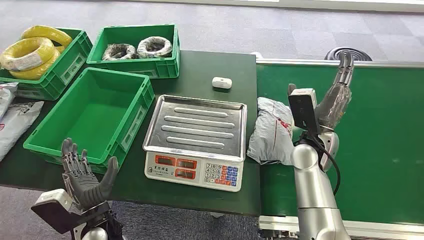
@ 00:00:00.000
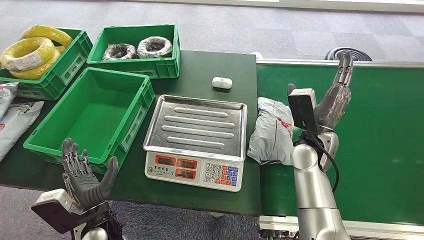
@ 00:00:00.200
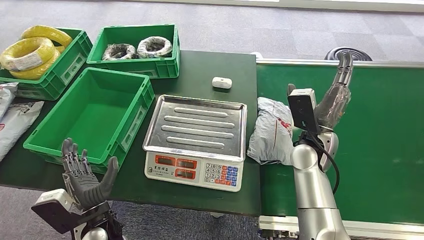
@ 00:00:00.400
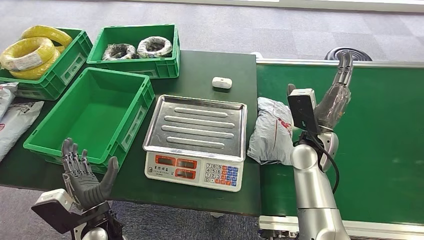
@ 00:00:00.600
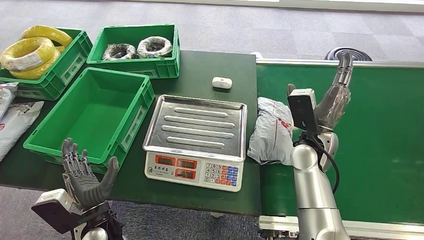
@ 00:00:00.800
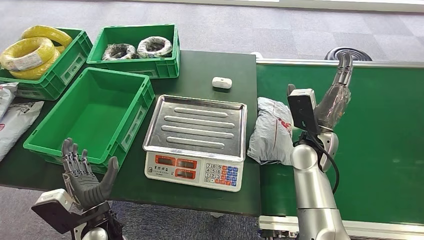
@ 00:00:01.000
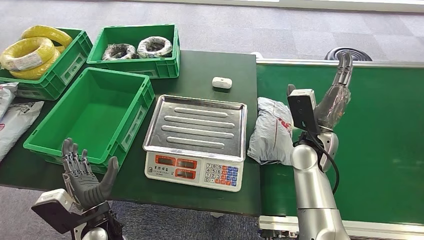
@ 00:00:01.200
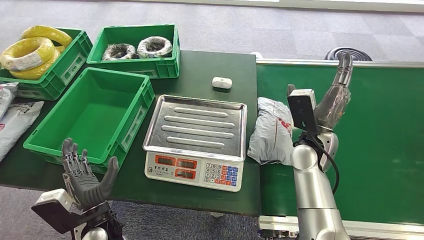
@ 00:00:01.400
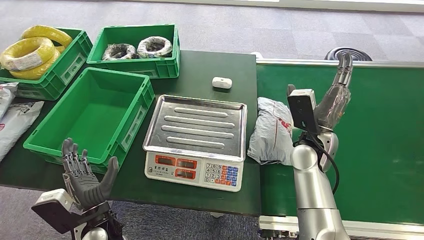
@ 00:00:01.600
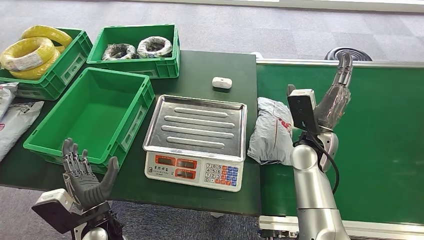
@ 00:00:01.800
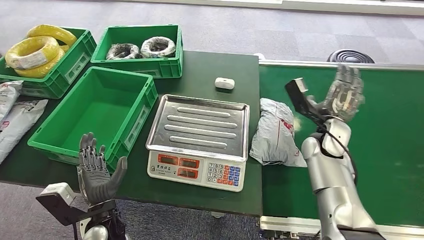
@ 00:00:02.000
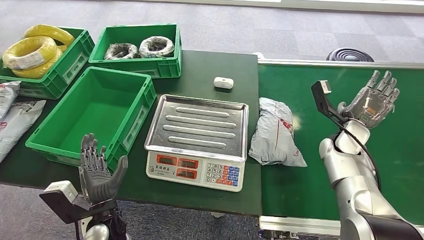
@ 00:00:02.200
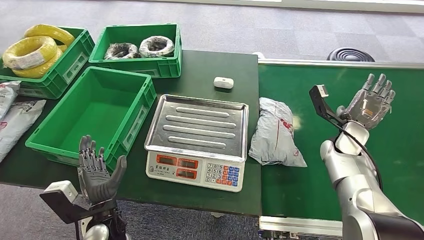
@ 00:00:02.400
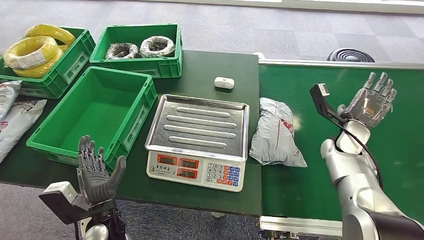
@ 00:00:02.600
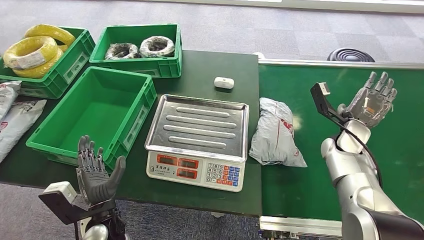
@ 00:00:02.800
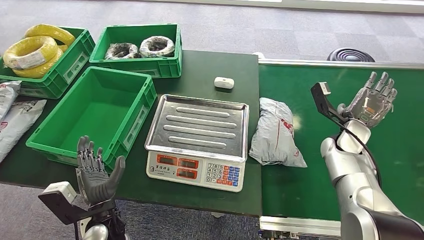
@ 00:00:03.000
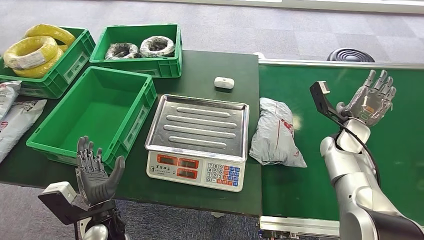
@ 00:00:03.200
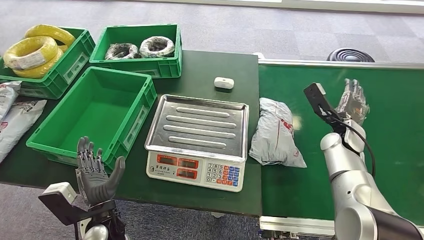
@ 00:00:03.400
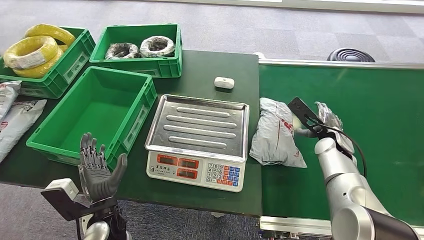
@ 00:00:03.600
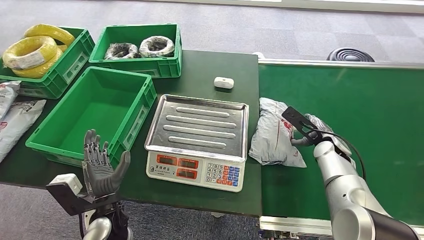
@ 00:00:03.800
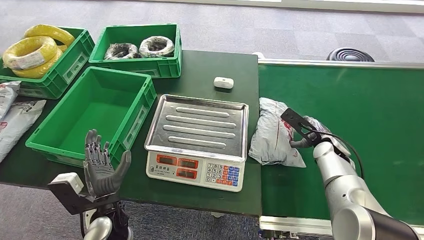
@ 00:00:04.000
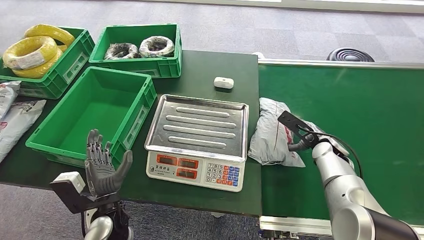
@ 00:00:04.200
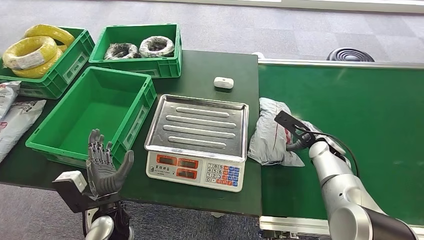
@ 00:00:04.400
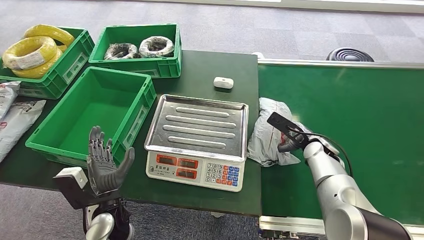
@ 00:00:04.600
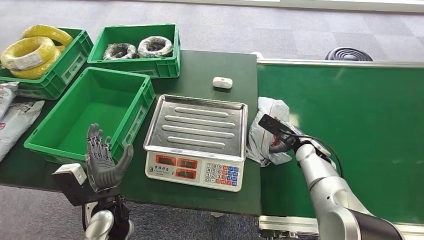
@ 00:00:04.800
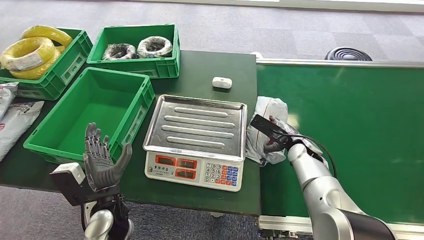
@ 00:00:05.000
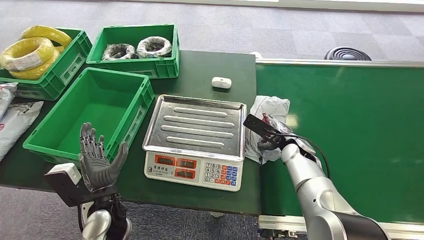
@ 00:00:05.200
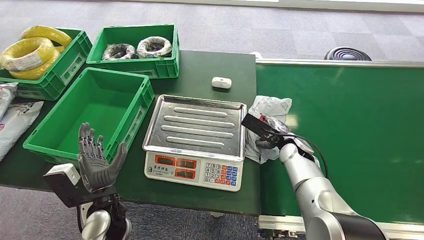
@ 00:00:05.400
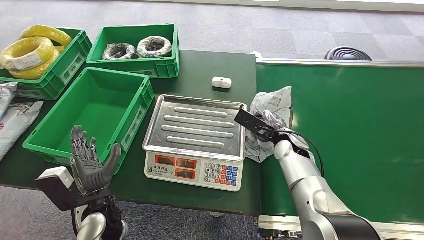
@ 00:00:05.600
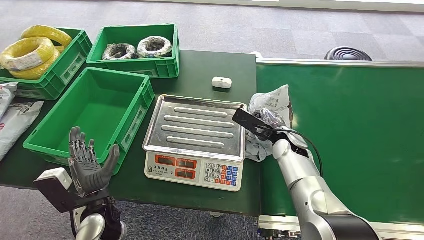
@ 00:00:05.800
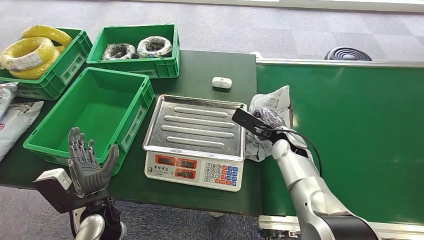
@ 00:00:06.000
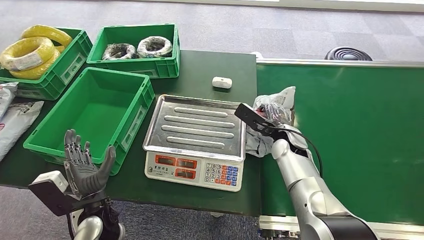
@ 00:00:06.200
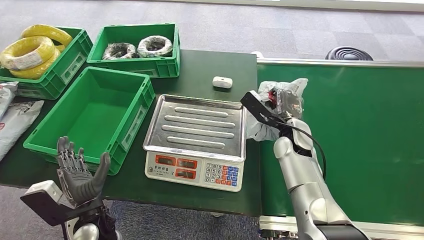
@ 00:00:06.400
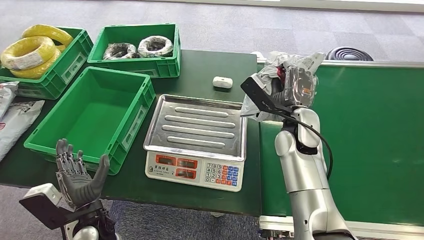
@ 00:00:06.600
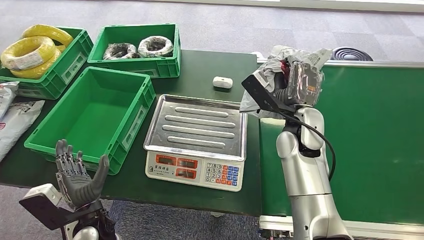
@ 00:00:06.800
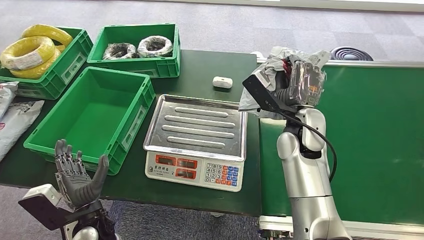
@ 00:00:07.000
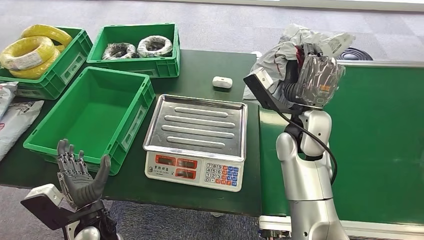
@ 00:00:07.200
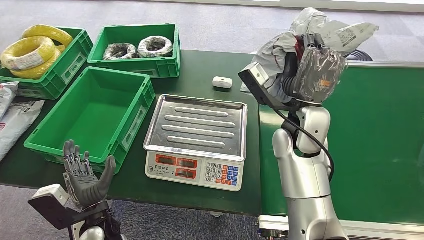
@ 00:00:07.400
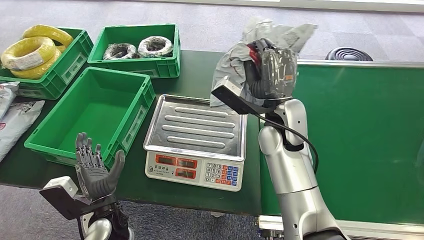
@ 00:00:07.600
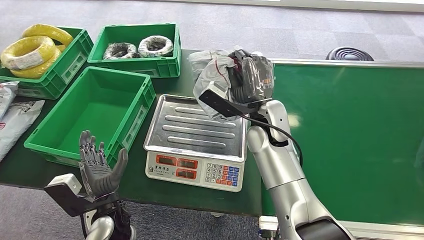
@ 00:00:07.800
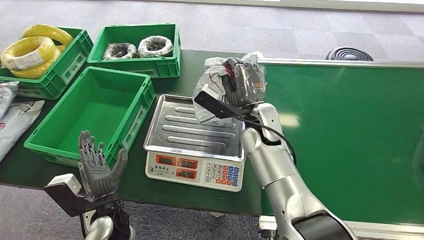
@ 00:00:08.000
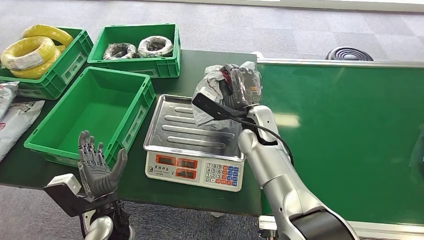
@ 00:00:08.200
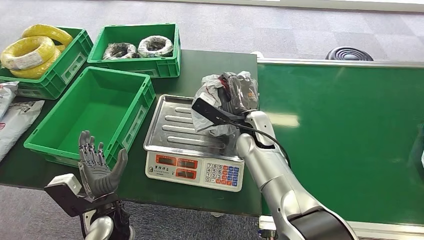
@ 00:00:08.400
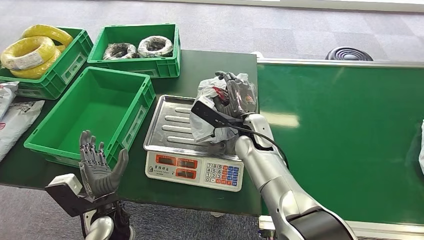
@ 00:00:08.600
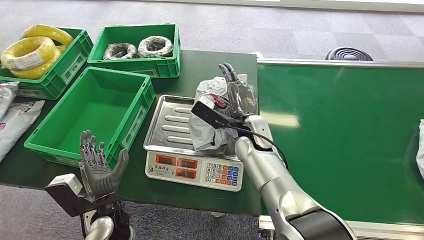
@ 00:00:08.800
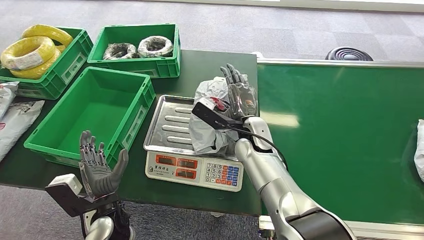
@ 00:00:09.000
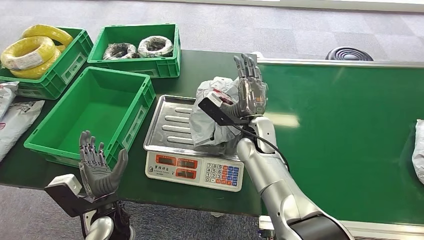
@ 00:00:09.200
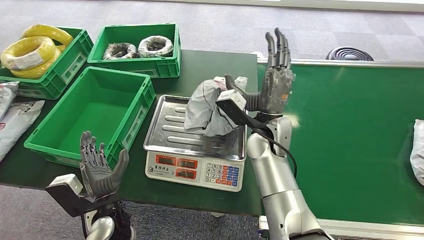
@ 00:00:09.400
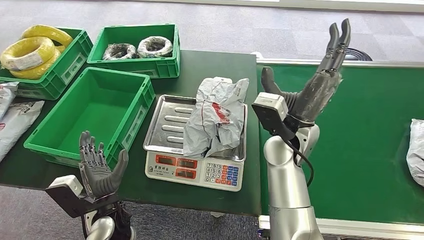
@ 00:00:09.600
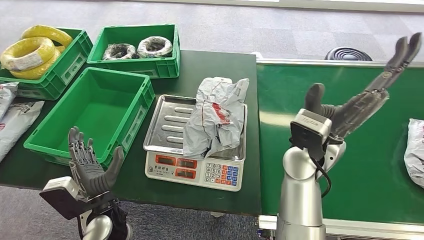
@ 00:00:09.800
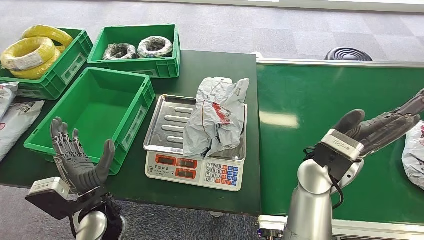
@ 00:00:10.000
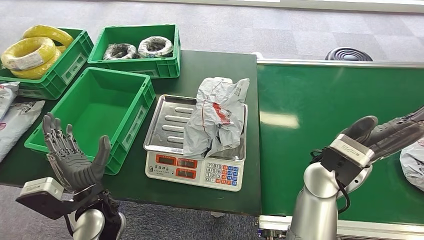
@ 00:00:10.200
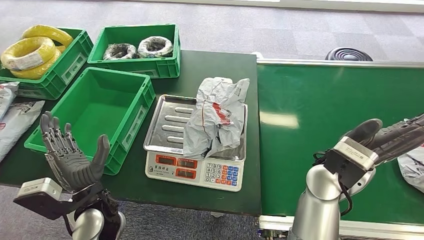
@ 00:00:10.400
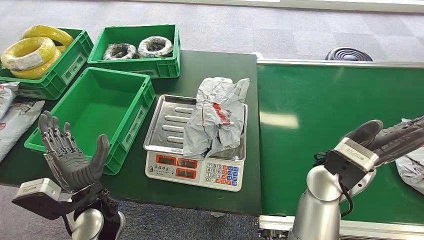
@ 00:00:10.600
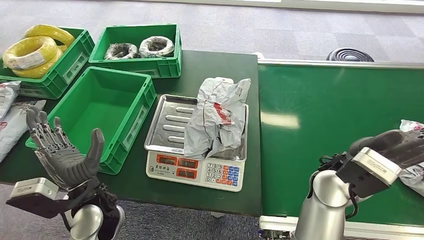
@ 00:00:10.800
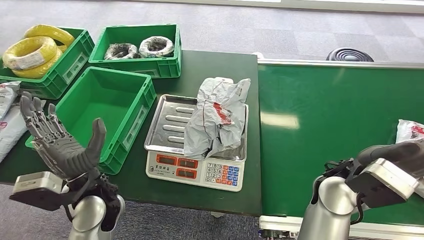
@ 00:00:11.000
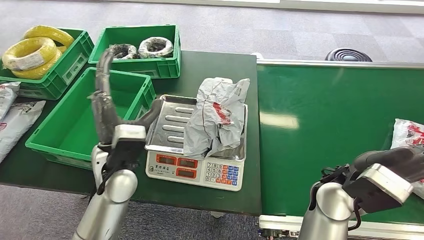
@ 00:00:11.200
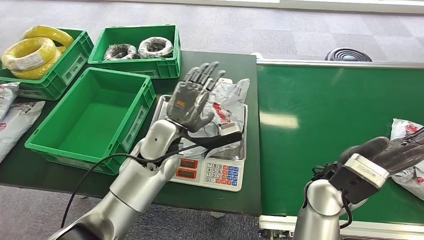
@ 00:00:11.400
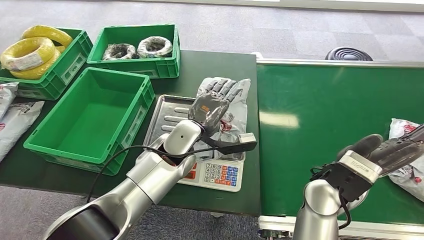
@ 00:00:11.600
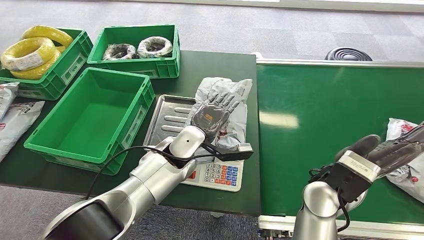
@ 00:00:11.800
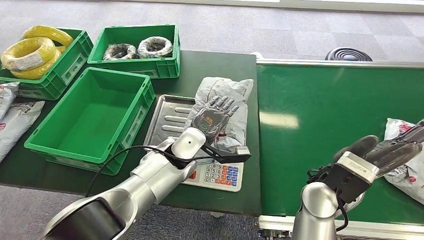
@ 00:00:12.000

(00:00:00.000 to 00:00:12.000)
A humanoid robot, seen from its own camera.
Step, 00:00:00.000 - 00:00:07.200: Pick up the package from the conveyor belt.
Step, 00:00:07.600 - 00:00:10.200: Place the package onto the inbound machine.
00:00:03.000 - 00:00:04.400: The right hand changes place by approximately 5 cm.
00:00:06.000 - 00:00:07.600: The right hand moves upward and to the left, about 15 cm.
00:00:07.600 - 00:00:09.000: The right hand travels downward by roughly 10 cm.
00:00:10.400 - 00:00:12.000: The left hand heads to the right and forward, covering about 20 cm.

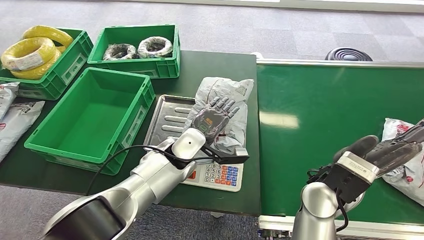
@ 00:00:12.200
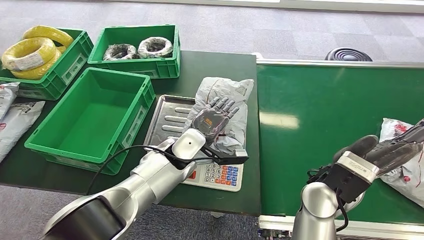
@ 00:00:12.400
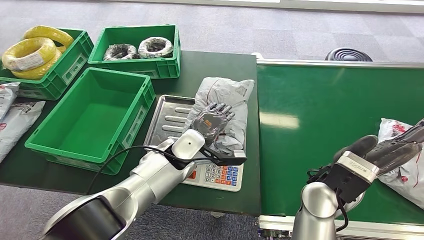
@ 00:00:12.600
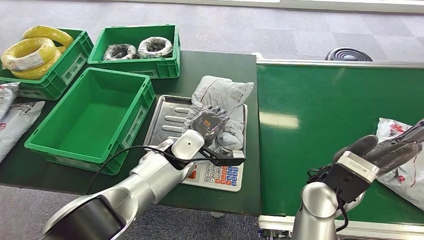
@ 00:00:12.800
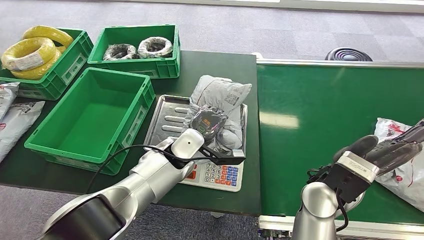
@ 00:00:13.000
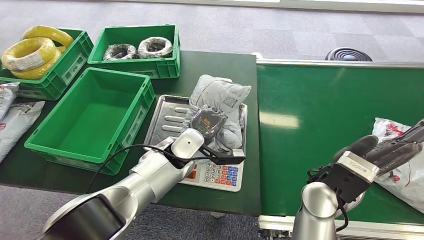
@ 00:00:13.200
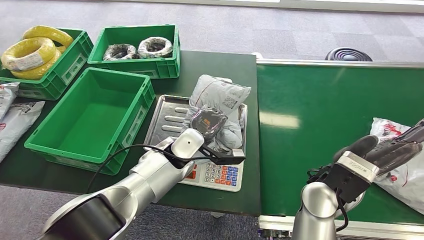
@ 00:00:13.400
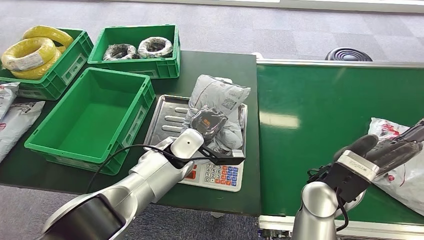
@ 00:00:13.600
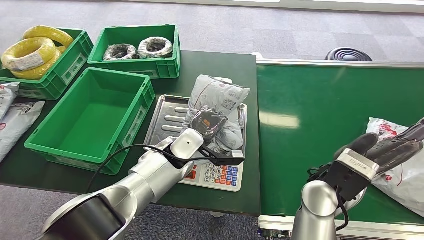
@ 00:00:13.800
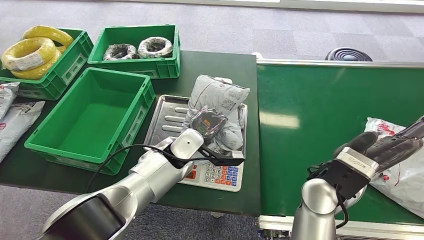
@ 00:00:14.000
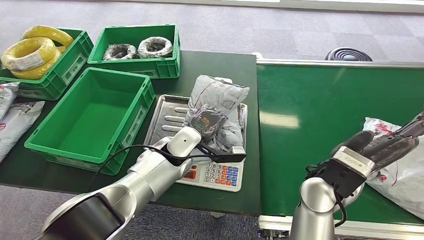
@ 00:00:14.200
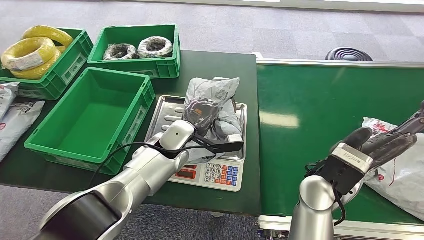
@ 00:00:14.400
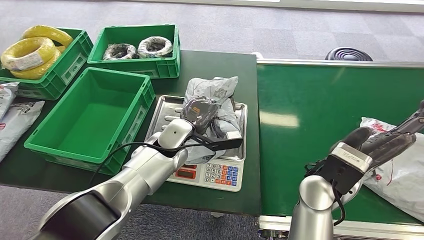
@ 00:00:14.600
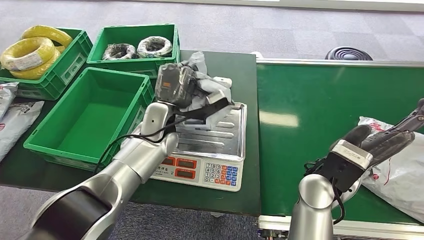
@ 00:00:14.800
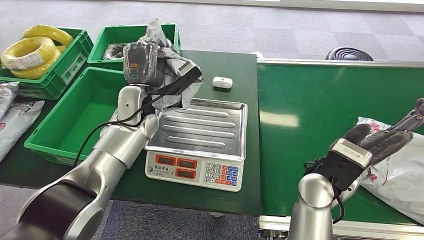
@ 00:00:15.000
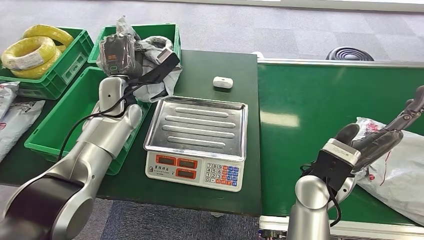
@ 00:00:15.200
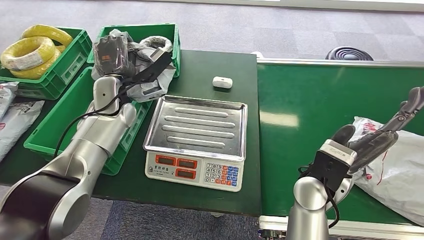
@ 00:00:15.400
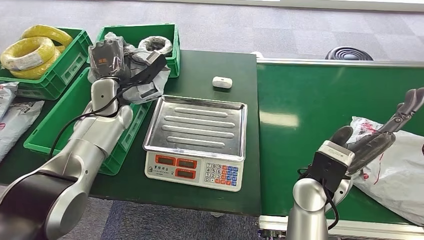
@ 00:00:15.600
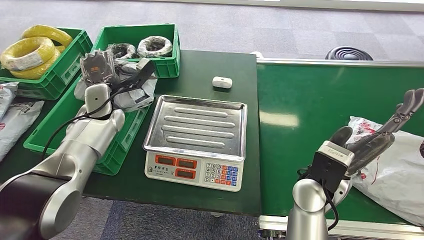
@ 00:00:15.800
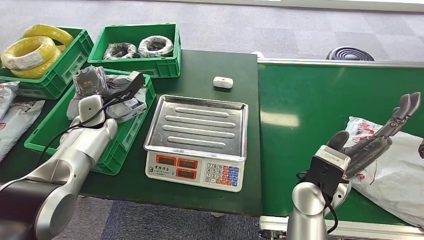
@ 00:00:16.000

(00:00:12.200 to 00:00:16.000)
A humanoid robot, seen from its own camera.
Step, 00:00:12.200 - 00:00:15.400: Pick up the package from the inbound machine.
Step, 00:00:15.600 - 00:00:16.000: Place the package into the parcel locker.
00:00:12.200 - 00:00:13.400: Both hands stay about where they are.
